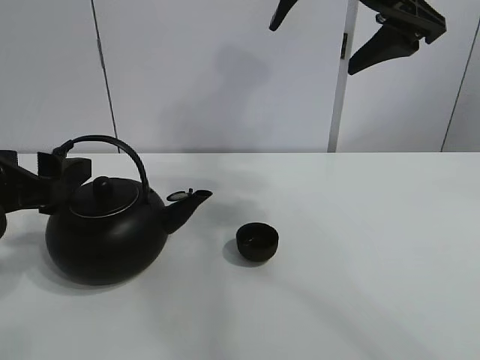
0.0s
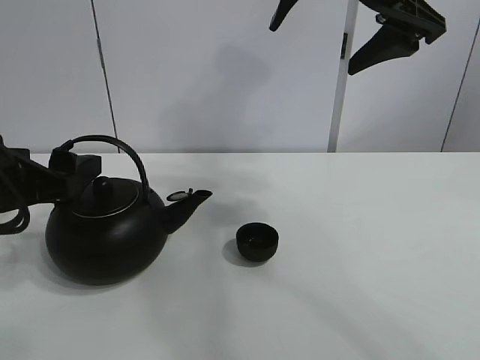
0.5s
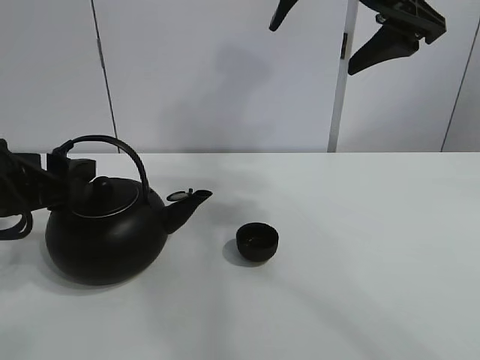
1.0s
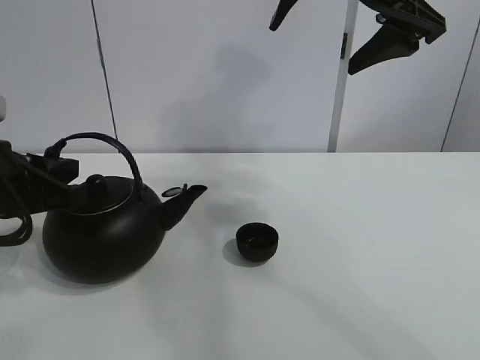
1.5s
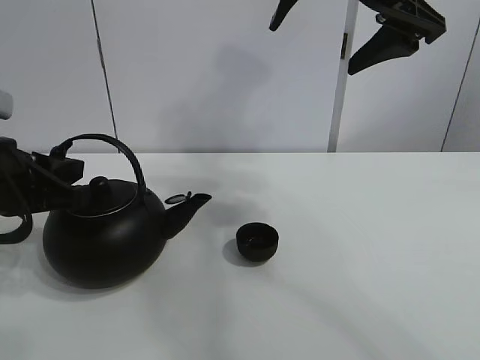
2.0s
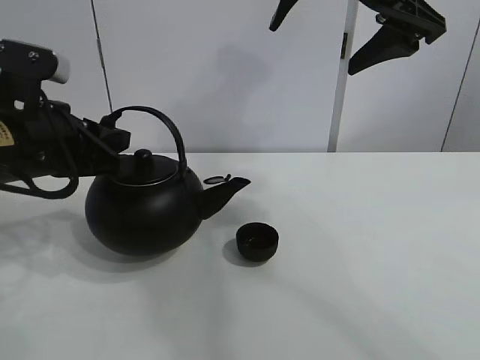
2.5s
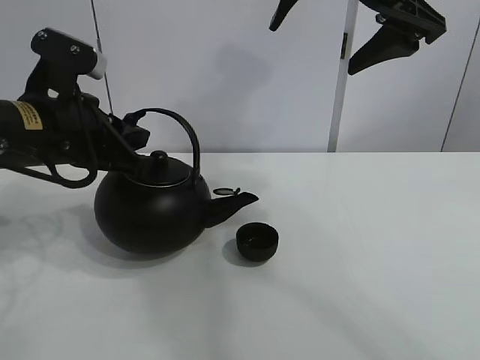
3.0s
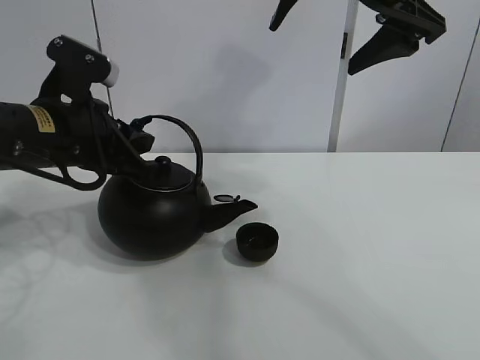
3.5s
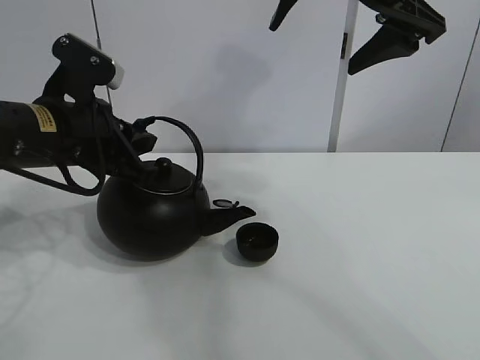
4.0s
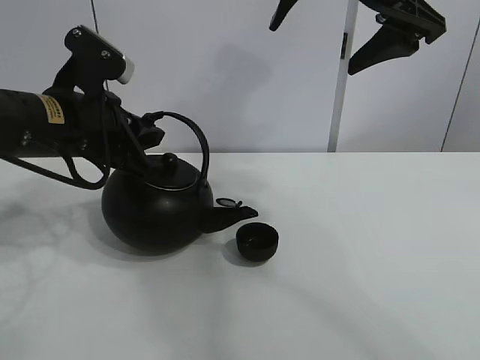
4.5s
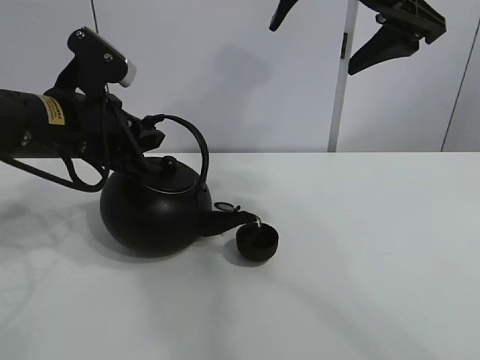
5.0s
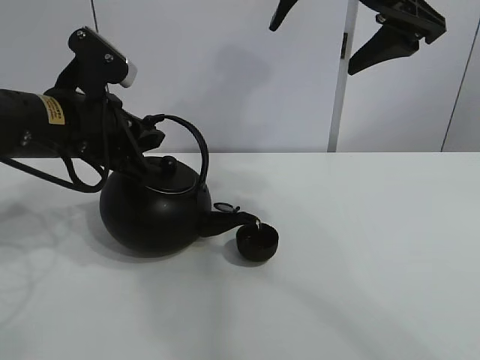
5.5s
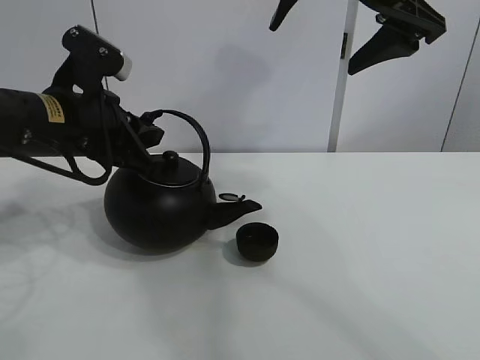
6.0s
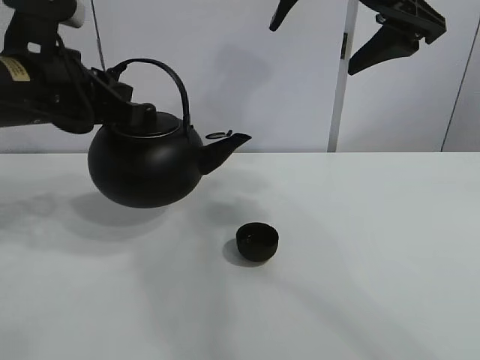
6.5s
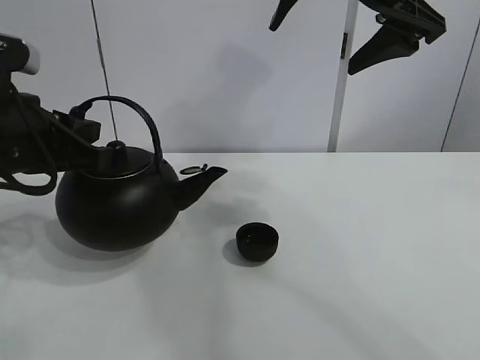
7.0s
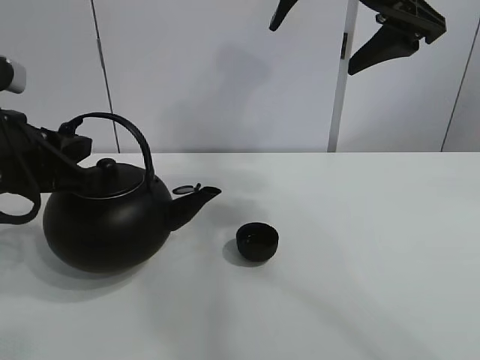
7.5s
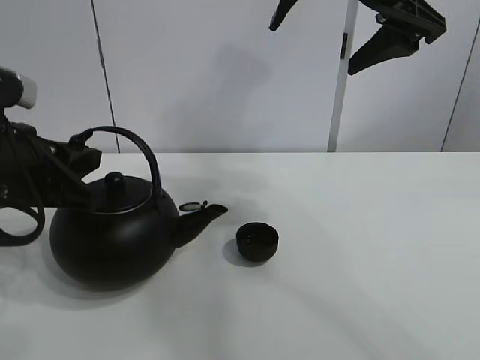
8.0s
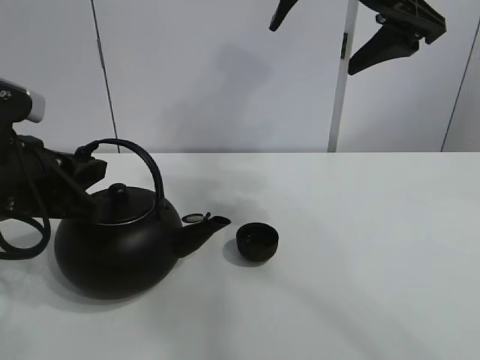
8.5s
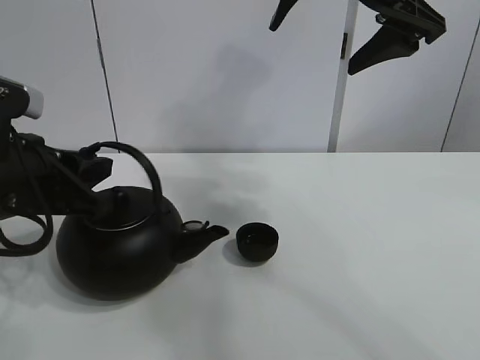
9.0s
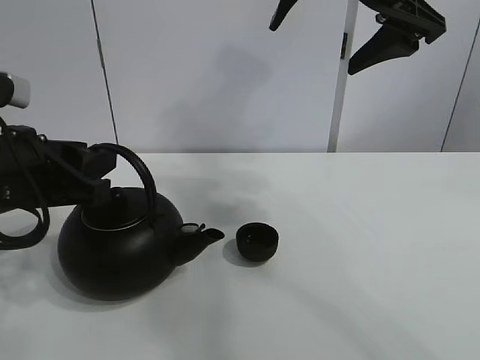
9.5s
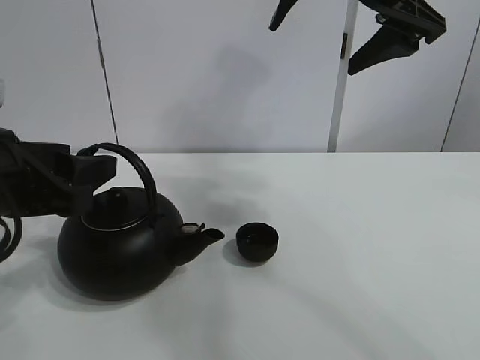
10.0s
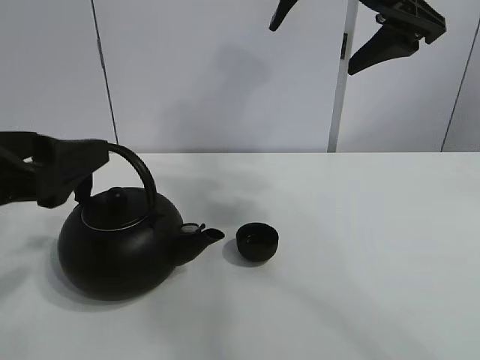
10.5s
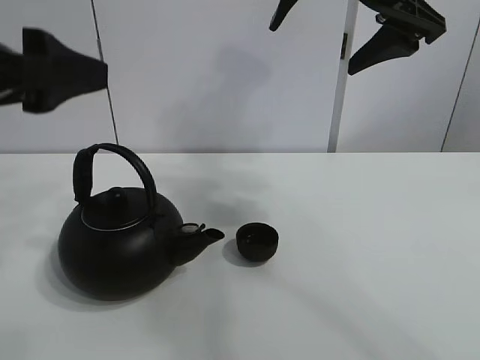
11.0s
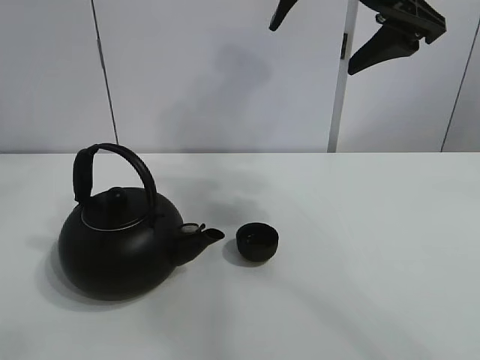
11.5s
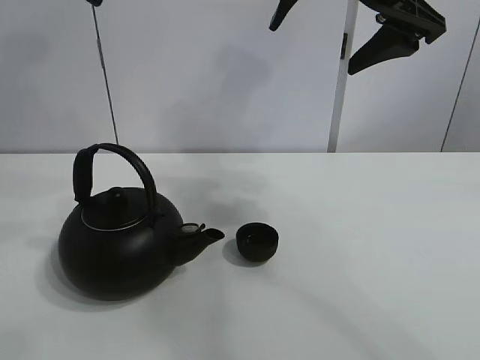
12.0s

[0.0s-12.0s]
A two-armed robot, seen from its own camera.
Task of the whole recording: pour tea into the teacup.
Step, 2.0s to 5.5s: Pour tea into the teacup with the left gripper.
0.0s to 2.0s: The left gripper closes its fingers.
2.0s to 4.0s: The left gripper is displaced forward and to the right by roughly 10 cm.
4.0s to 6.0s: The grippers move only a little.
6.0s to 8.0s: The left gripper is displaced backward by roughly 5 cm.
8.0s to 10.0s: The left gripper opens its fingers.
10.0s to 12.0s: The left gripper shifts approximately 25 cm upward.

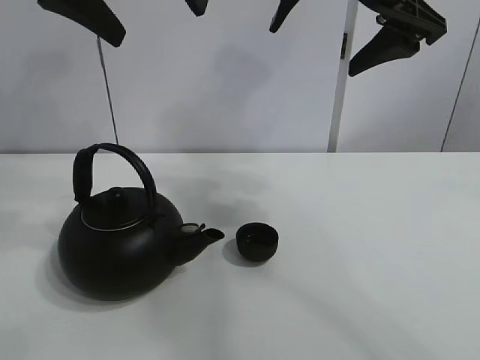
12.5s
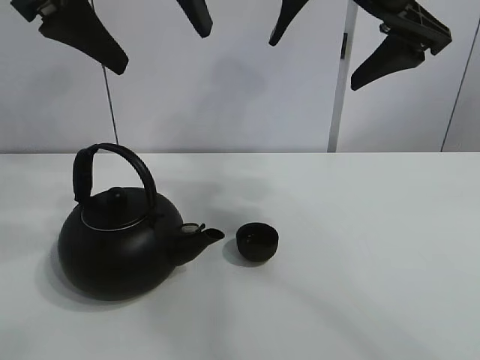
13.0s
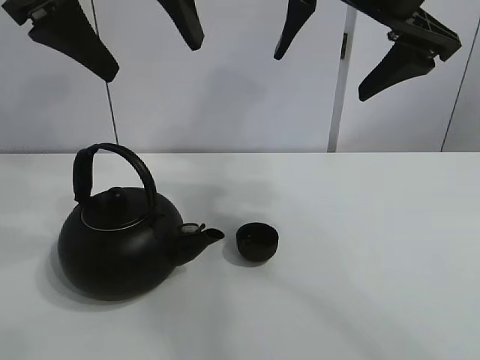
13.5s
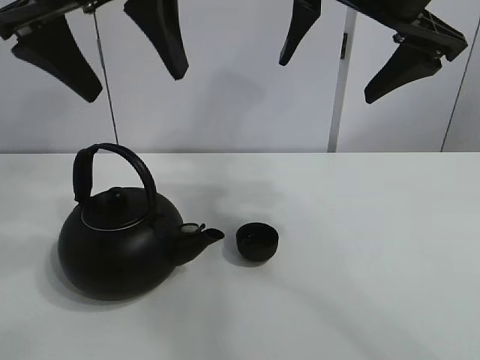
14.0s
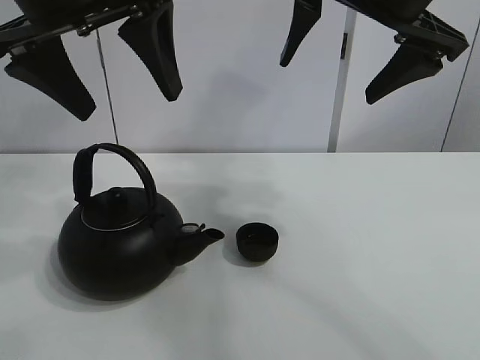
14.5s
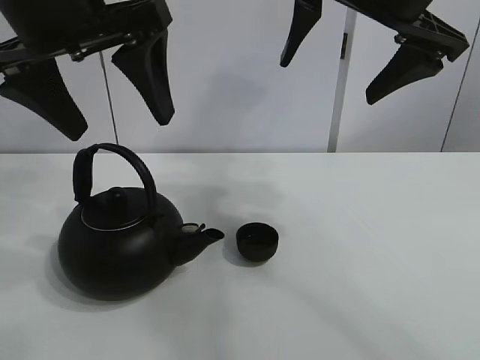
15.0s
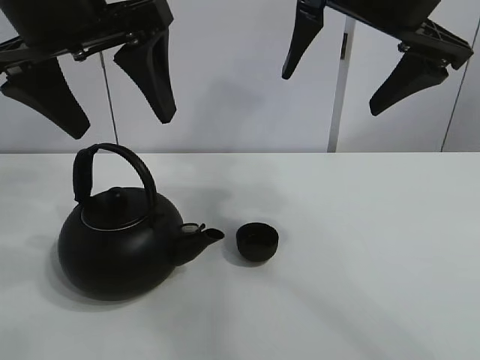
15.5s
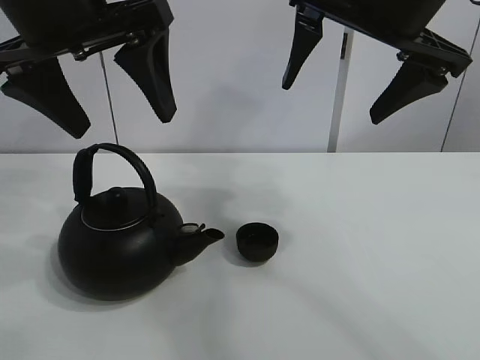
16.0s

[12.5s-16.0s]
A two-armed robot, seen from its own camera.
Task of the whole recording: pour tea into the teacup.
12.5s to 14.5s: The grippers move only a little.
14.5s to 16.0s: The grippers make only small movements.
